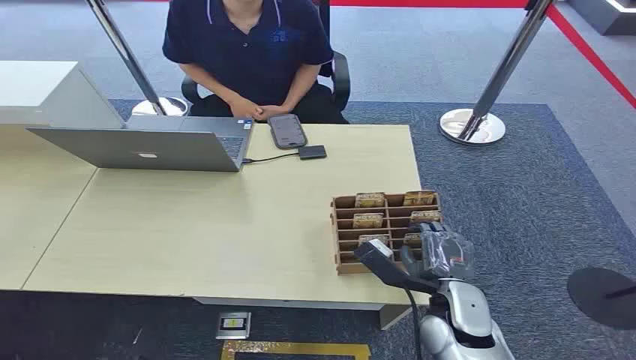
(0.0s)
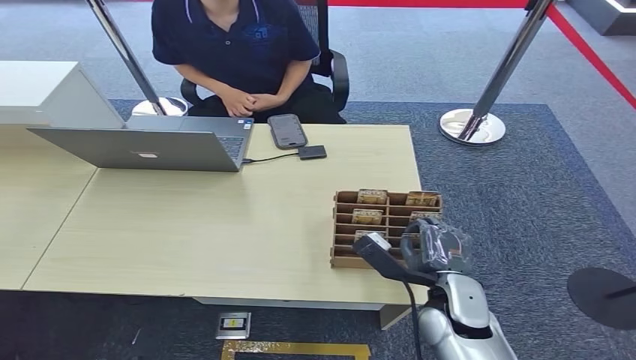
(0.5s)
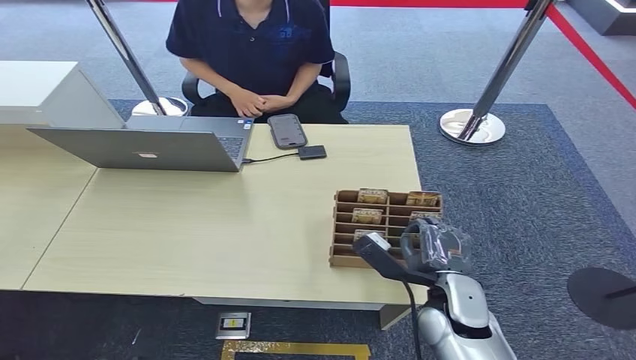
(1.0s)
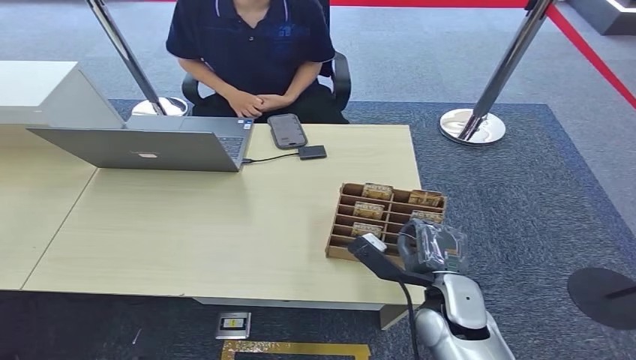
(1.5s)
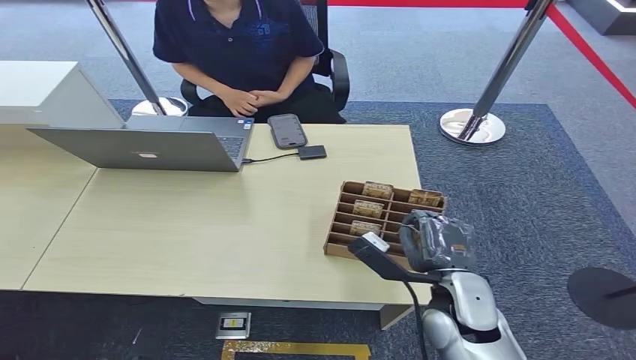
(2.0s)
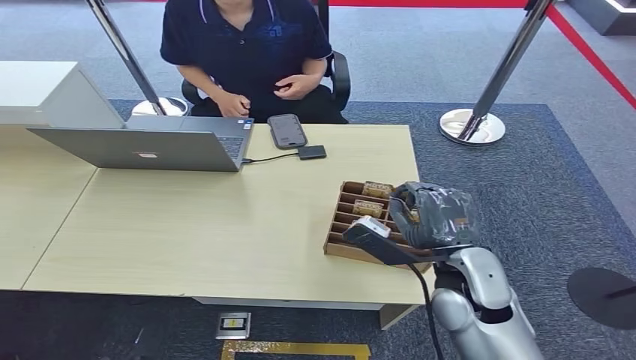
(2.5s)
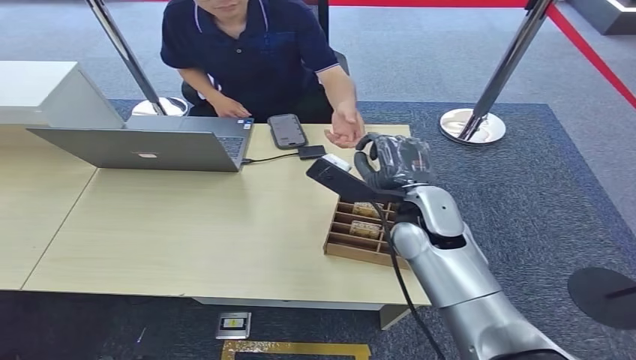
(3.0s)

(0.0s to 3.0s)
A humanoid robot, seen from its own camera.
Step, 0.0s - 1.5s: Pick up the key card from the card box.
Step, 2.5s - 3.0s: Hand the key card to the target.
1.5s - 3.0s: The right hand shifts some 15 cm forward and upward.
